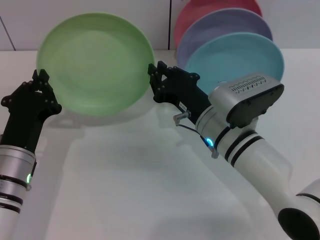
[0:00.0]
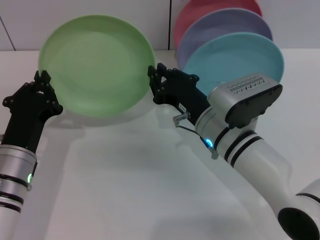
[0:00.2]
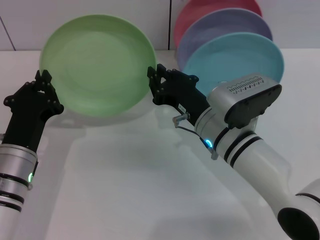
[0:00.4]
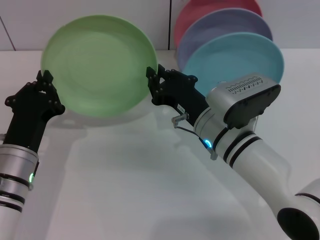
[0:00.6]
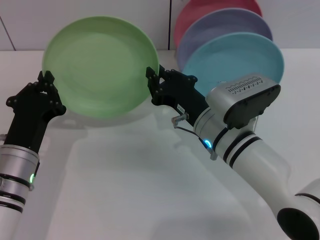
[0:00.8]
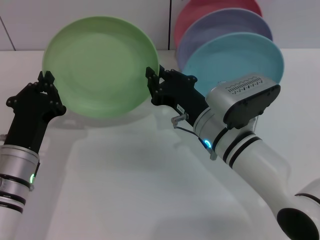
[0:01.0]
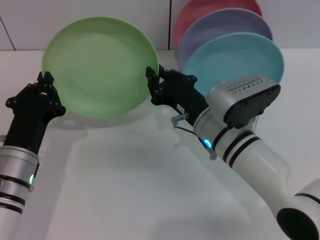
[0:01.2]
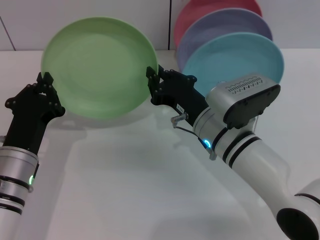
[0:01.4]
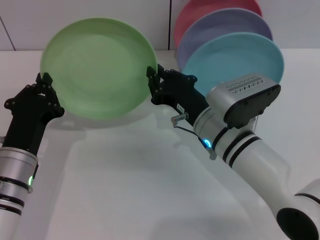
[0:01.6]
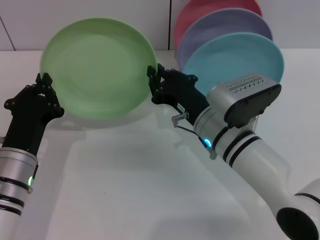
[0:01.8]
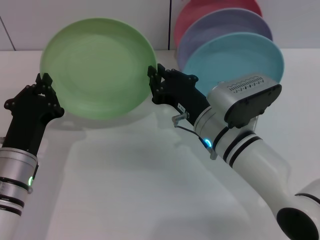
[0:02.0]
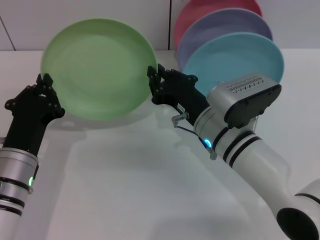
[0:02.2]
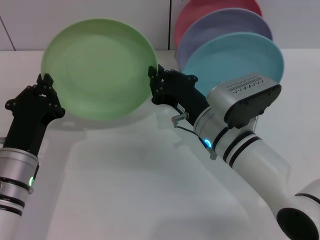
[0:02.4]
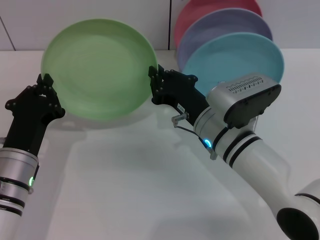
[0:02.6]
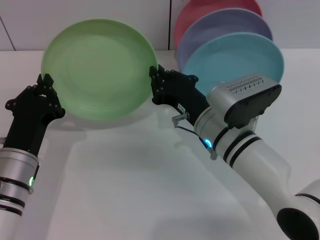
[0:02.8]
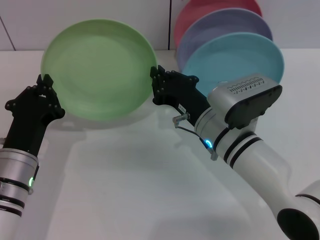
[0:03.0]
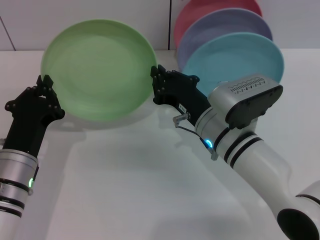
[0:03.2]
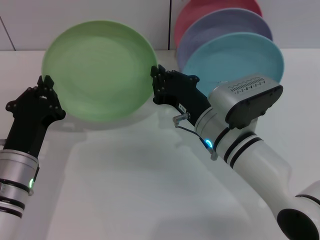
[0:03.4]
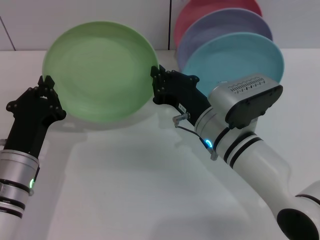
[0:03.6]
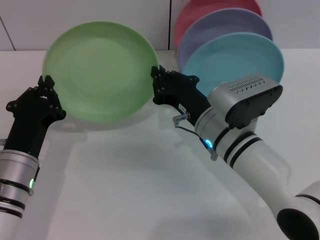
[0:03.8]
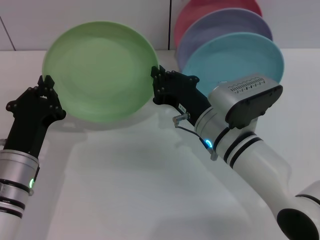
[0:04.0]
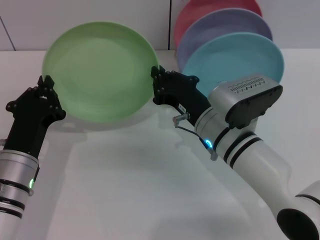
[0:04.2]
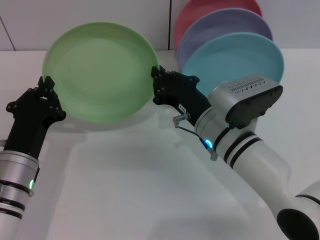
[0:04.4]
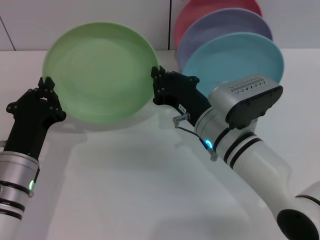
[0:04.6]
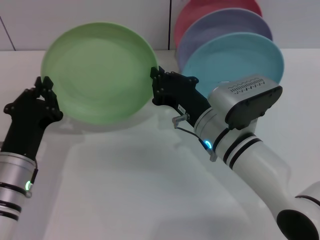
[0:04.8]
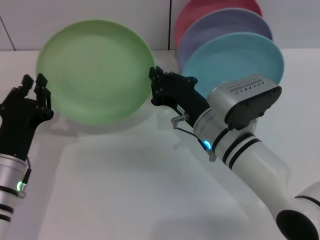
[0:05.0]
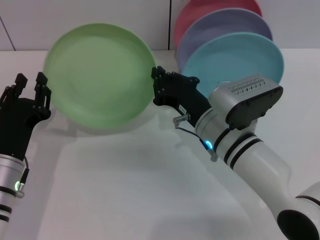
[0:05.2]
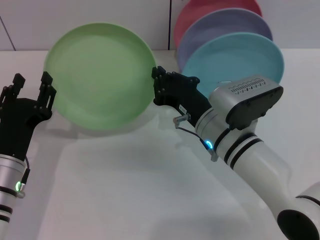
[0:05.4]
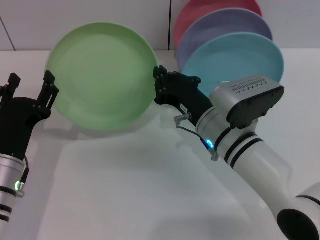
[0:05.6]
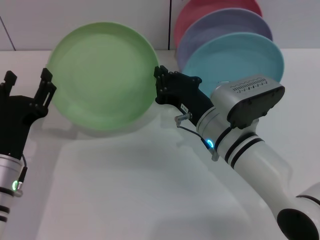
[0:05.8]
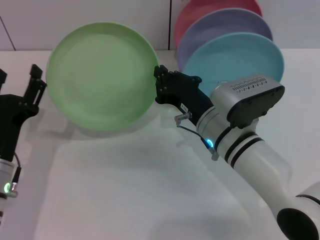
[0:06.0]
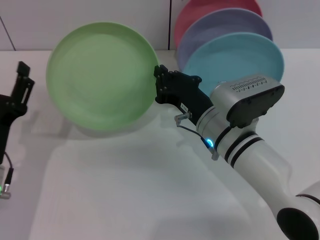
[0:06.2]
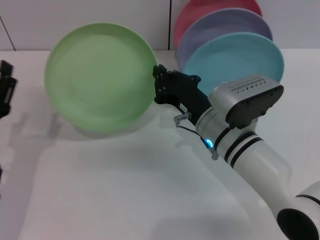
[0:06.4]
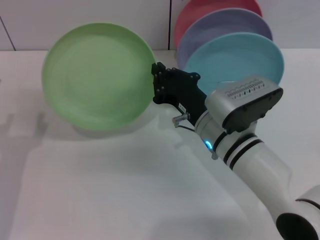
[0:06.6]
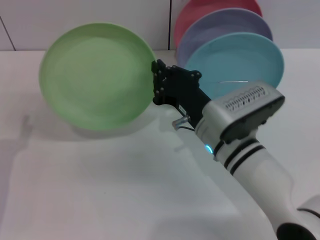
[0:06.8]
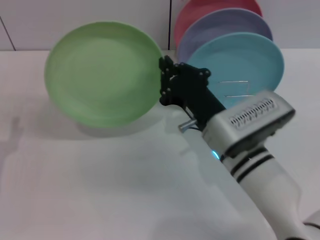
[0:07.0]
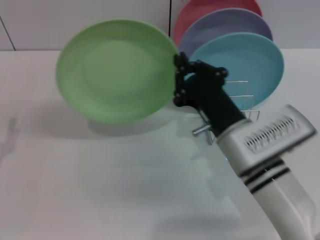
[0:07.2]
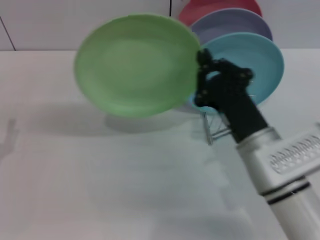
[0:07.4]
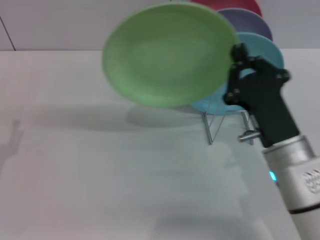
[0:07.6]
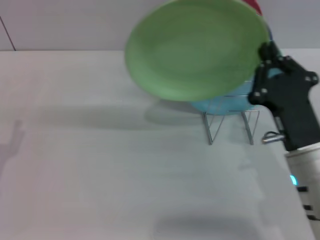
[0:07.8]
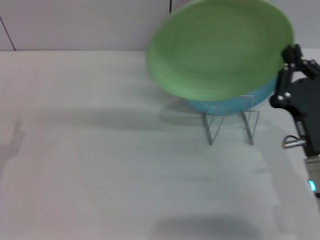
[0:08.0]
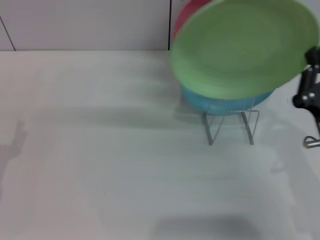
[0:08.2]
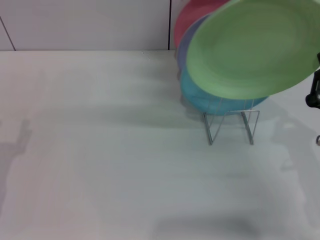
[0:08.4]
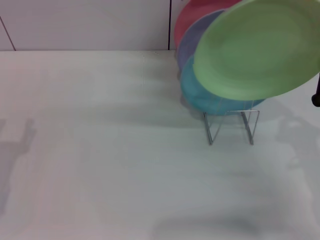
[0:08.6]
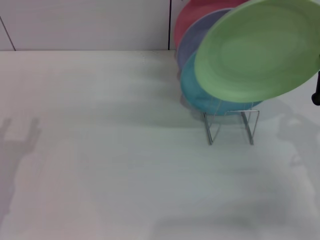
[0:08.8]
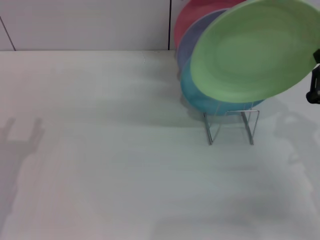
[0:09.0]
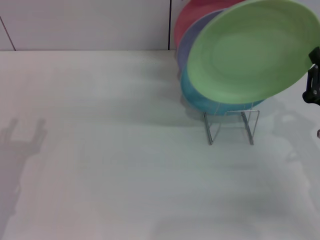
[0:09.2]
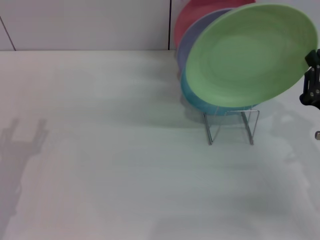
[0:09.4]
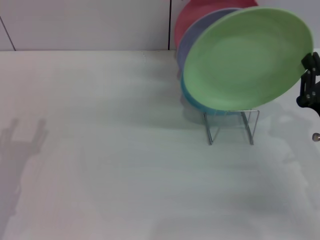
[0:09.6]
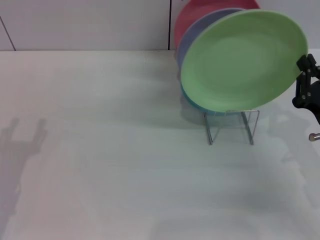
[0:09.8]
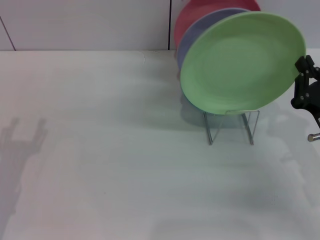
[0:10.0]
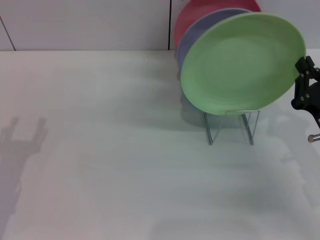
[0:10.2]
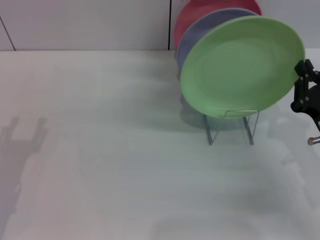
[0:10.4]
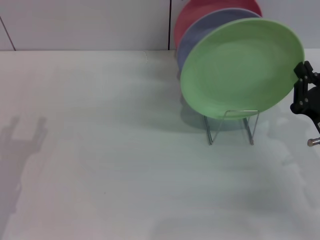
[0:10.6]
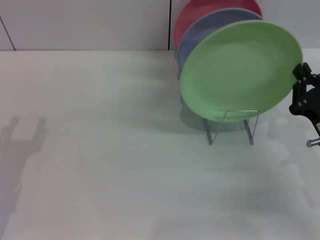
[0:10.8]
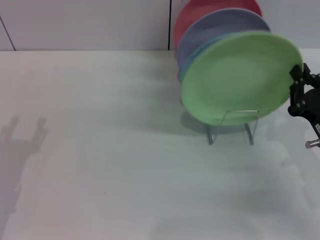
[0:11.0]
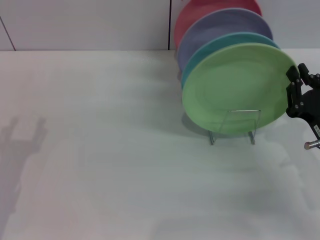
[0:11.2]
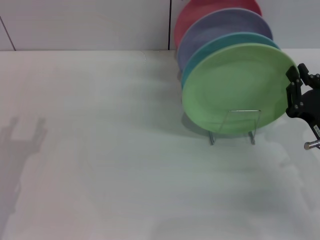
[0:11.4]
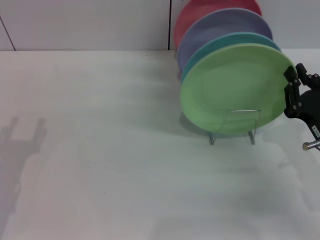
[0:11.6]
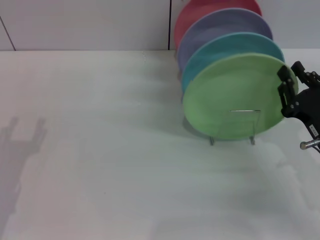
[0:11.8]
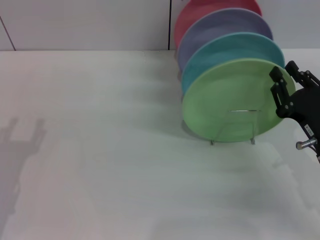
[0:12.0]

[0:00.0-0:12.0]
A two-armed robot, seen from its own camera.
Task of the whole recording: Grip the plate with one hand, pass it to the other, then set it on the shelf.
Step, 0:00.0 to 0:06.0: Pass the plate from the left gripper to the right gripper.
0:00.0 to 0:04.4: Both grippers stay about where they are.
0:04.4 to 0:06.0: The left gripper opens its fingers.
0:06.0 to 0:07.6: The left gripper goes about 10 cm to the left; the right gripper travels backward and to the right by about 10 cm.
0:07.6 to 0:09.0: The right gripper heads to the right, covering some 10 cm.
0:09.0 to 0:12.0: The grippers stay close to where they were, moving slightly.

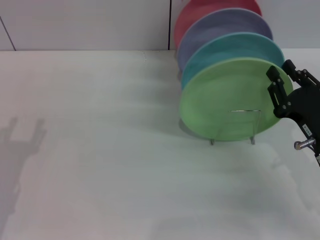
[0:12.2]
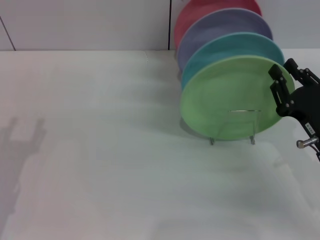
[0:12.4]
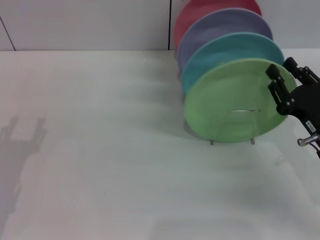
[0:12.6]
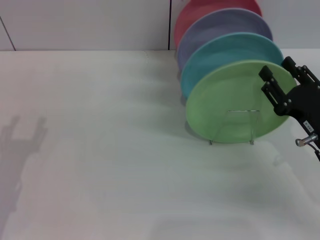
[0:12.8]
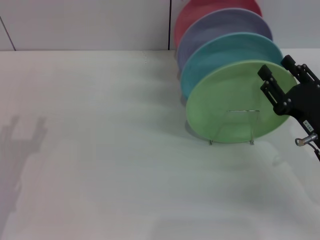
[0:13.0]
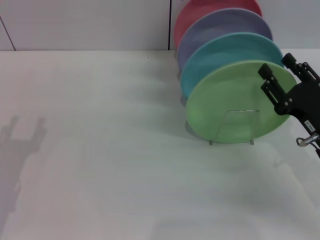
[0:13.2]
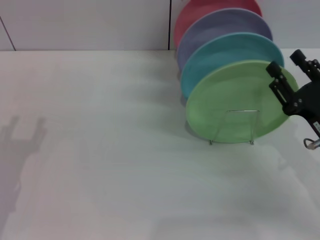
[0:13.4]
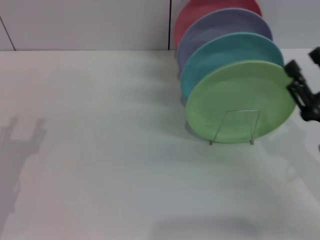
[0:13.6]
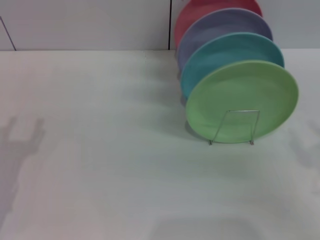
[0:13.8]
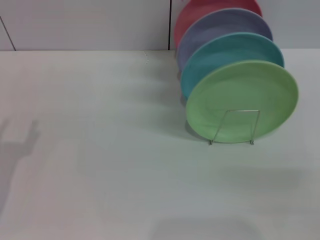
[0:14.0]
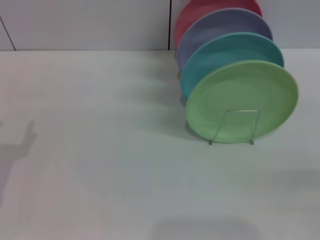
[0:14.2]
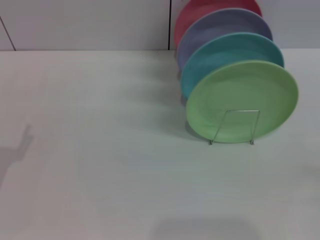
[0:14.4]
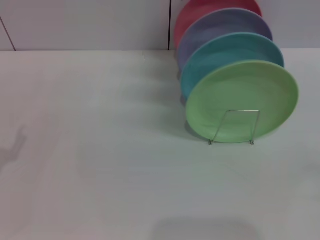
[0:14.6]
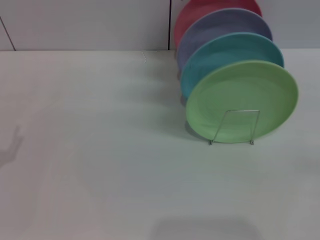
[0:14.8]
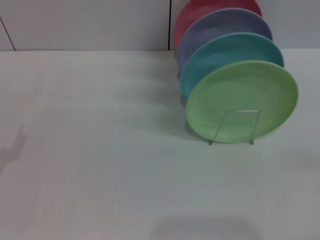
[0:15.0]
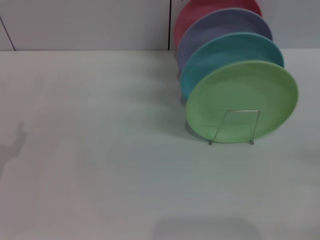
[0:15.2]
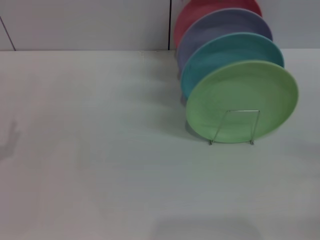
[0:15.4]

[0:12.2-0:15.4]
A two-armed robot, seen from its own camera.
Task of the whole recording: Grip the plate with one hand, pass it to the other, then set it on the shelf.
0:12.2 to 0:13.8: The right gripper is displaced backward by some 5 cm, and opens its fingers.
0:13.8 to 0:15.4: The right gripper shifts about 10 cm to the right.
